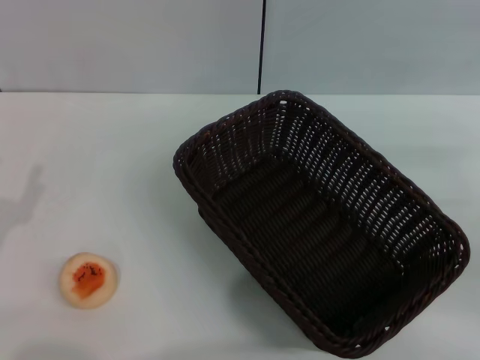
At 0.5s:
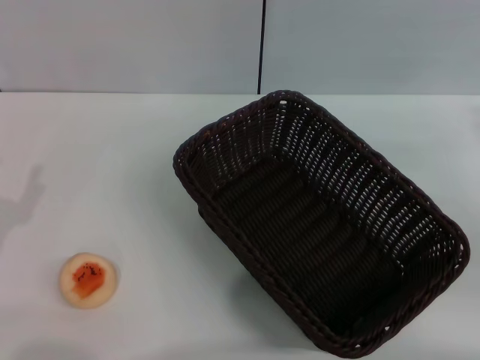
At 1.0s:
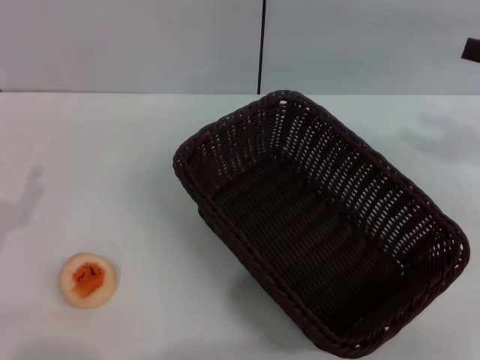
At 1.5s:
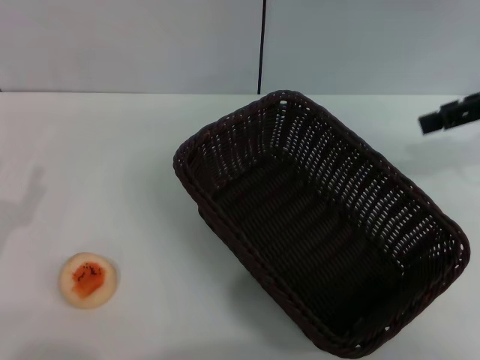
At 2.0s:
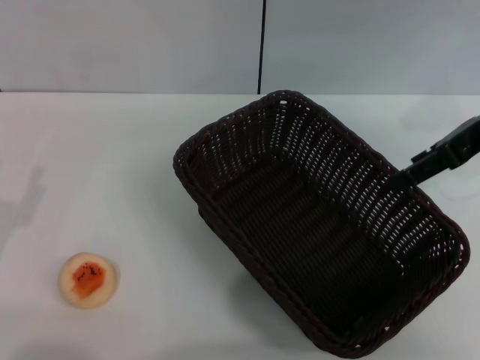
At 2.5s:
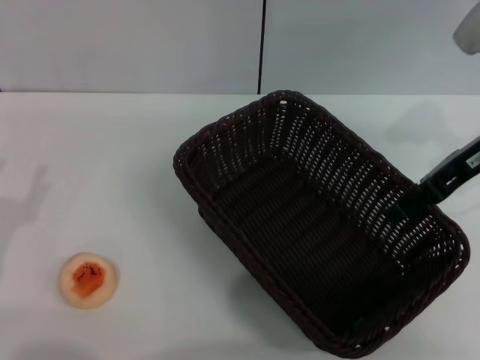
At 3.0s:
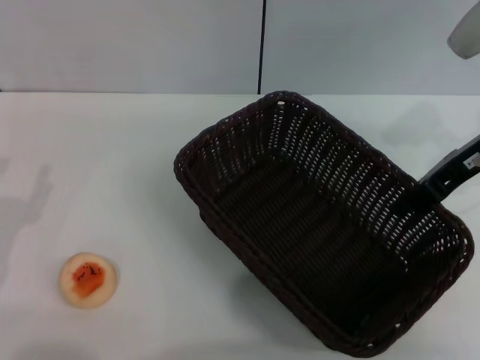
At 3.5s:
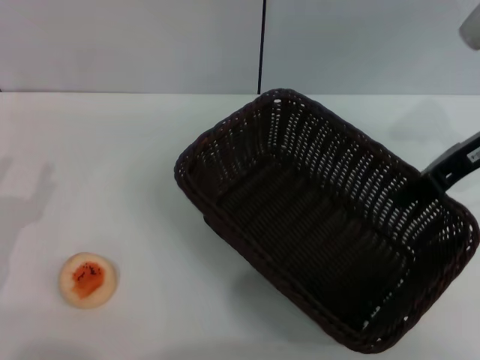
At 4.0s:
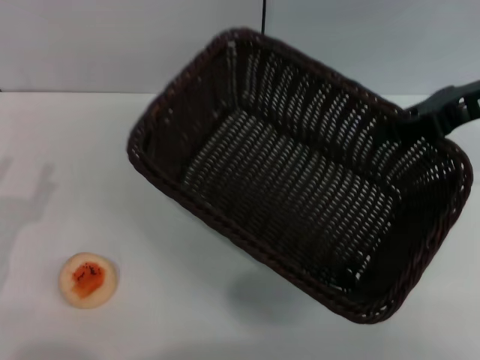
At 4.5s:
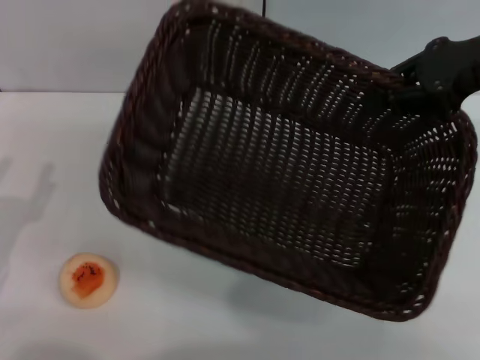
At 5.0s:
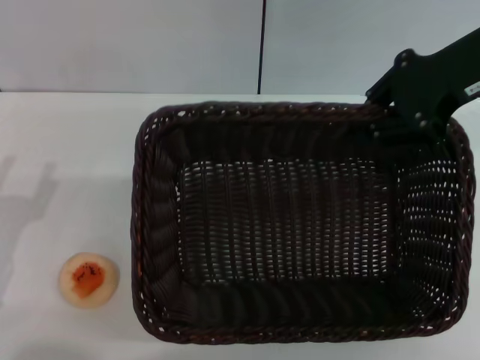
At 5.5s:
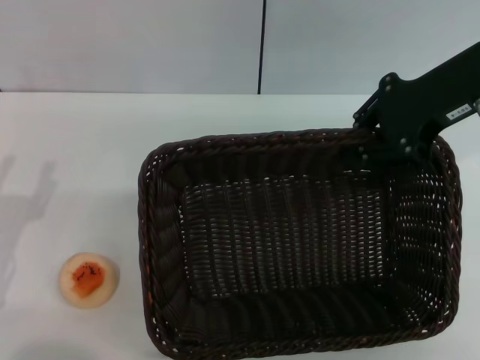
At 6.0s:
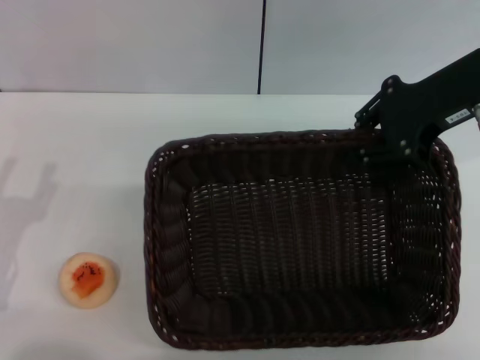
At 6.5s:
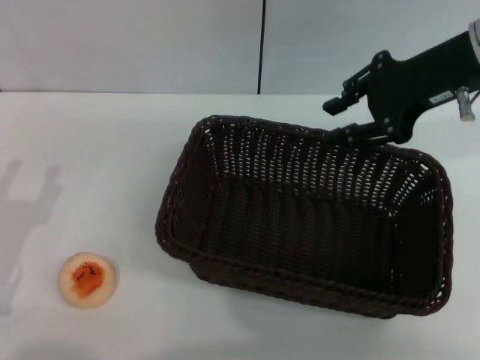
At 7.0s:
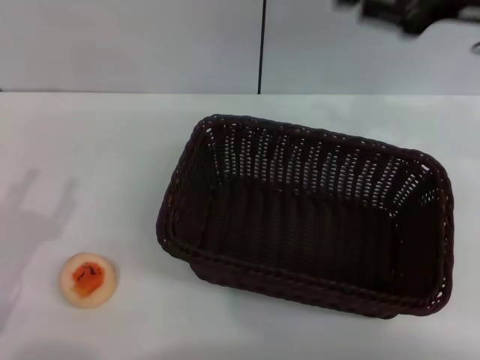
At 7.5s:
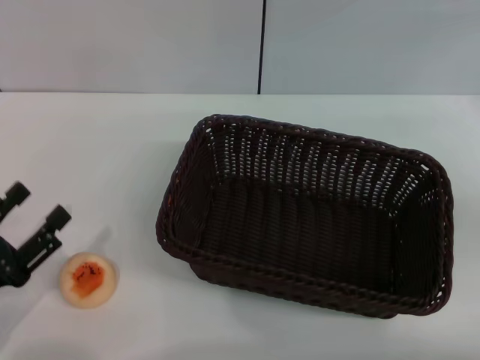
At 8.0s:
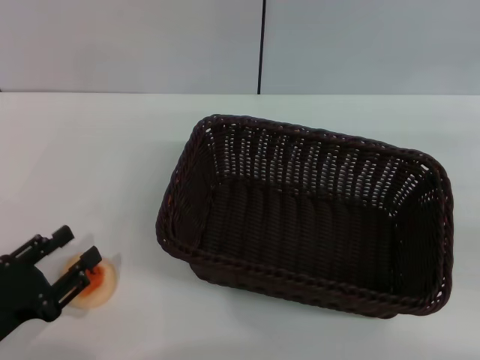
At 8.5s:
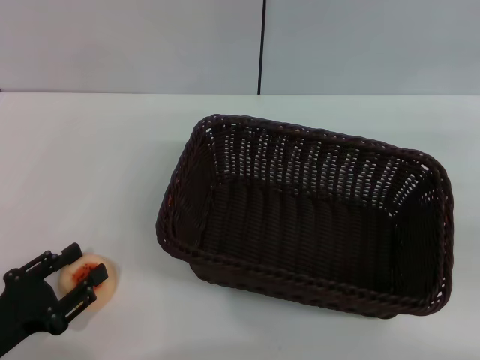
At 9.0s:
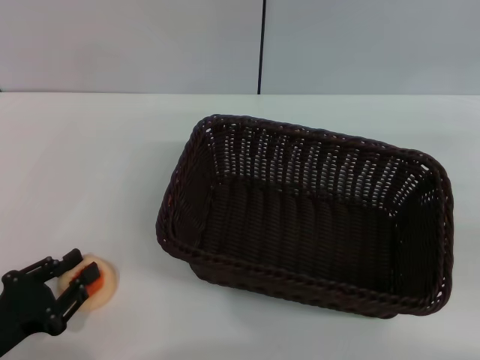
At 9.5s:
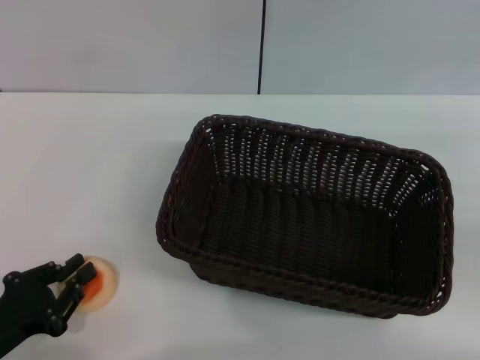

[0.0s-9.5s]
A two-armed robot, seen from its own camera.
Step, 0.0s to 6.0s: Move the basket to the center of view with the right gripper.
0.0s to 2.0s: The right gripper goes some 20 cm forward, upward and to the left, and opens up.
2.0s to 4.0s: The right gripper closes up.
4.0s to 5.5s: The right gripper travels to the left by some 5 cm.
5.5s to 7.5s: The right gripper moves to the right and downward, some 20 cm.
7.5s to 9.5s: The left gripper closes up.

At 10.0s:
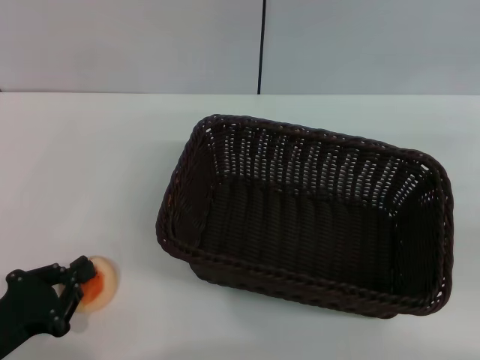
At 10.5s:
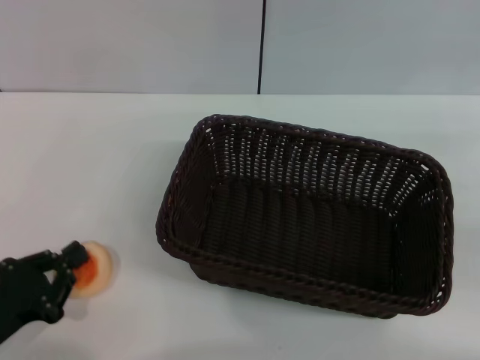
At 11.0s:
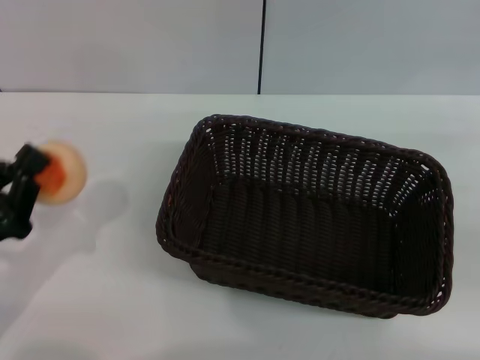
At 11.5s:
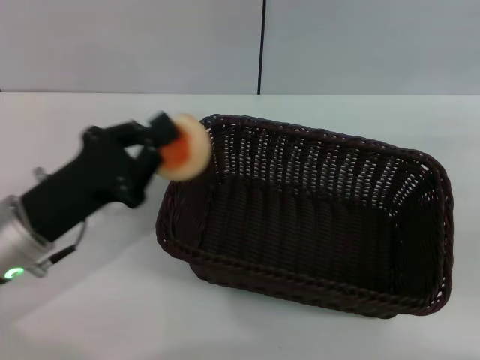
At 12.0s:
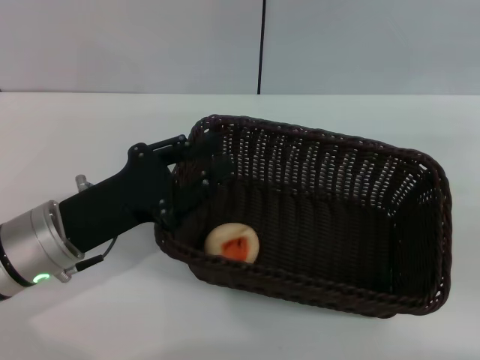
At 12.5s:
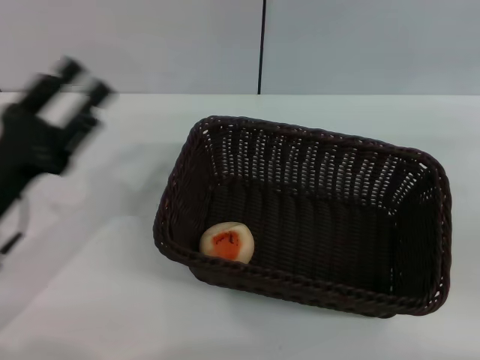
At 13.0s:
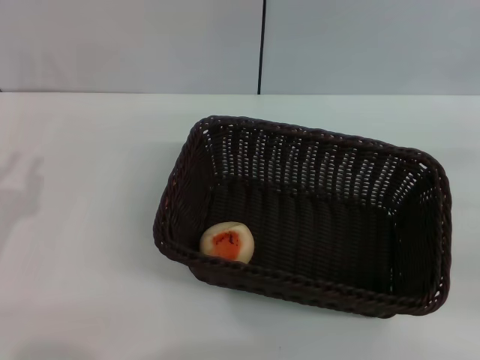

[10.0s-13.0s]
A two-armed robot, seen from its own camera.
Step, 11.0s to 12.0s: Place the egg yolk pastry into the basket with the left gripper.
10.0s to 11.5s: The left gripper shifts about 15 cm forward, to the right and upward.
11.5s to 13.0s: The left gripper moves to the left and backward, about 10 cm, and opens.

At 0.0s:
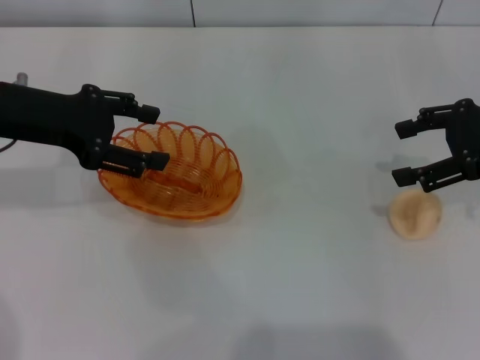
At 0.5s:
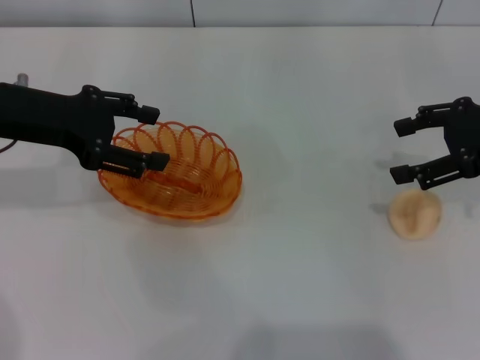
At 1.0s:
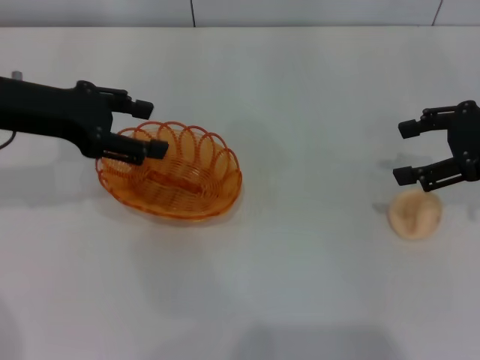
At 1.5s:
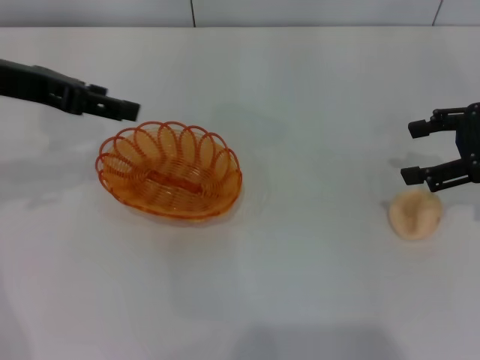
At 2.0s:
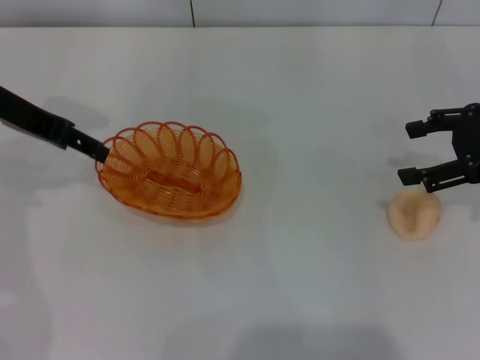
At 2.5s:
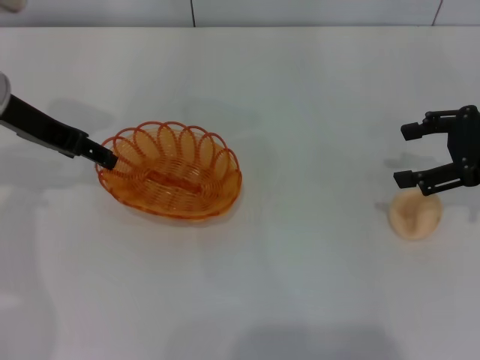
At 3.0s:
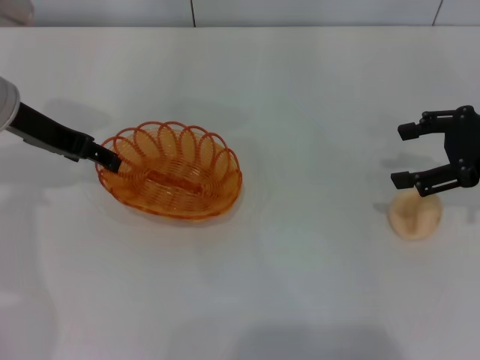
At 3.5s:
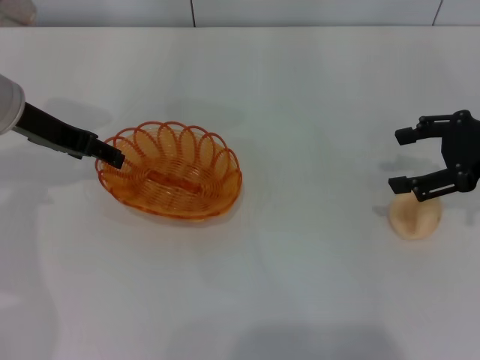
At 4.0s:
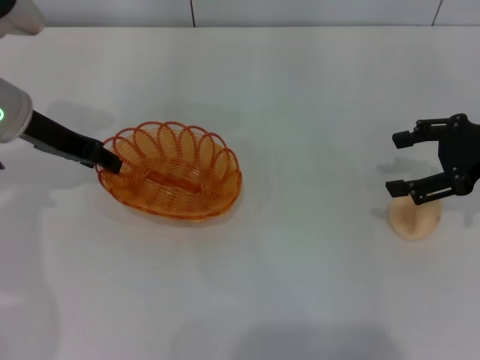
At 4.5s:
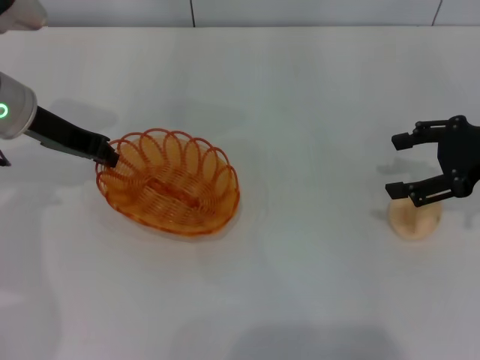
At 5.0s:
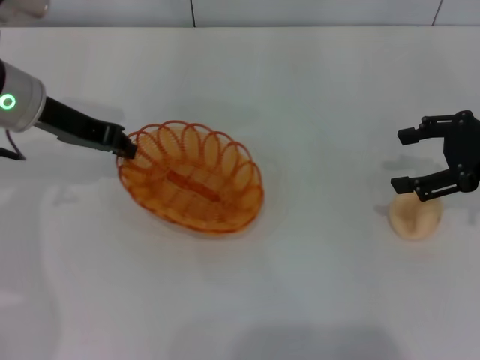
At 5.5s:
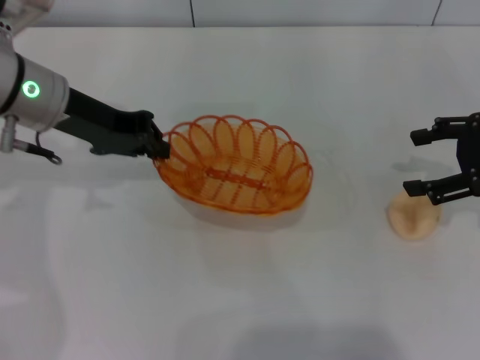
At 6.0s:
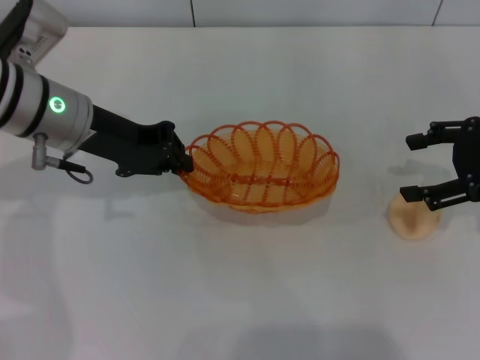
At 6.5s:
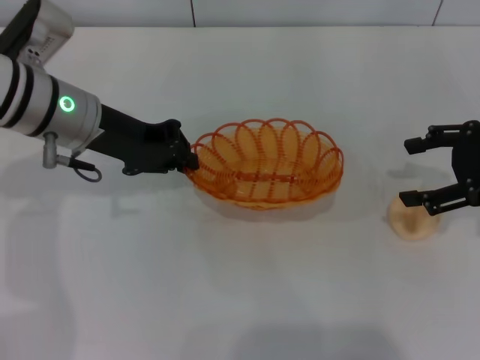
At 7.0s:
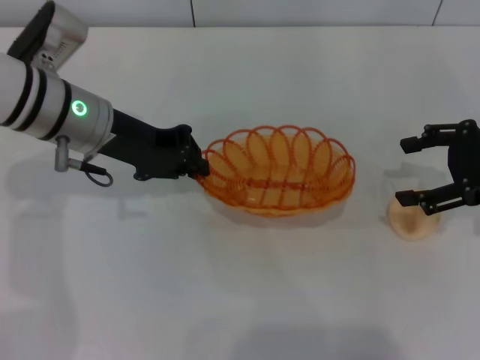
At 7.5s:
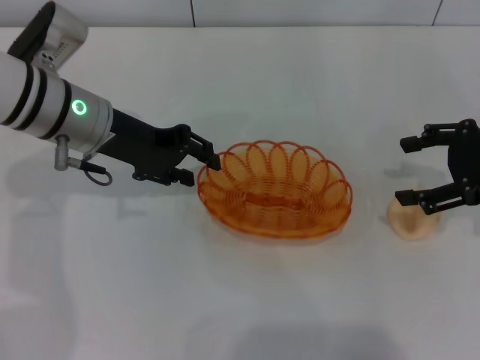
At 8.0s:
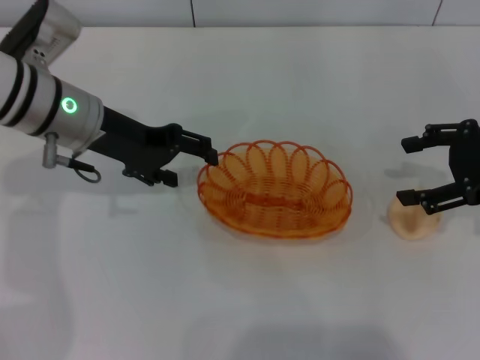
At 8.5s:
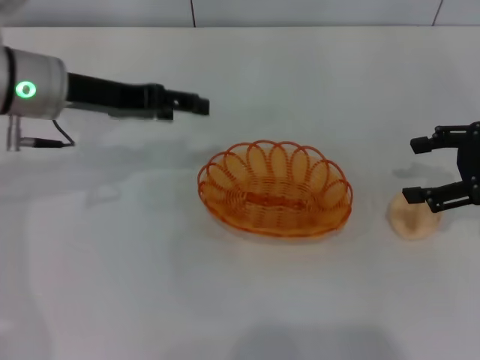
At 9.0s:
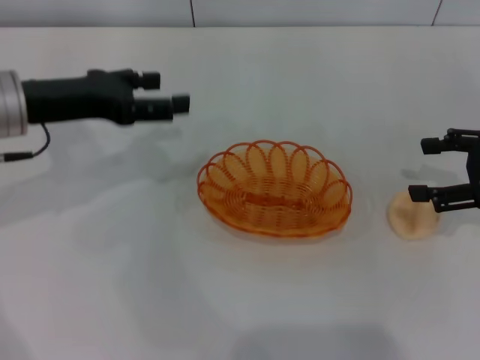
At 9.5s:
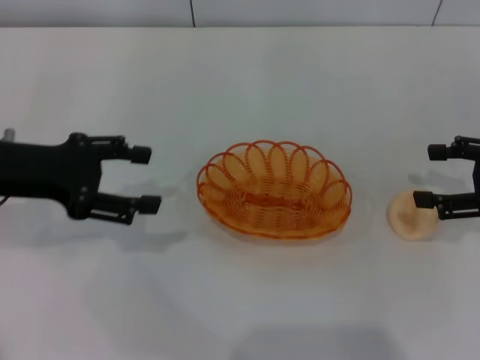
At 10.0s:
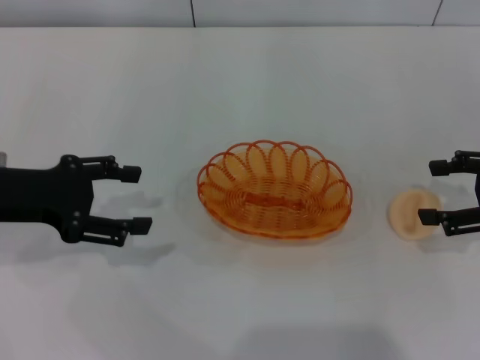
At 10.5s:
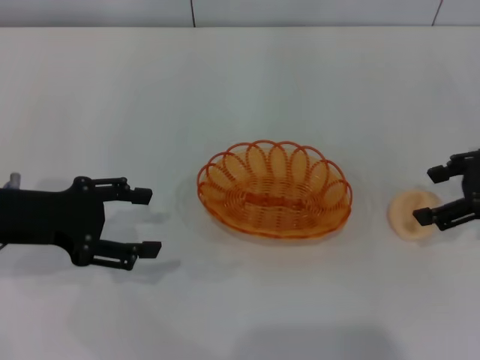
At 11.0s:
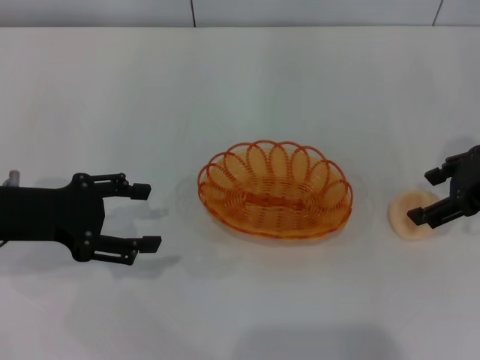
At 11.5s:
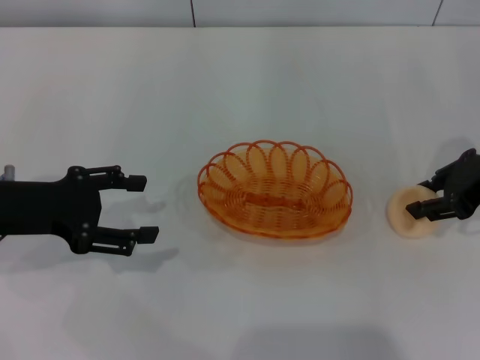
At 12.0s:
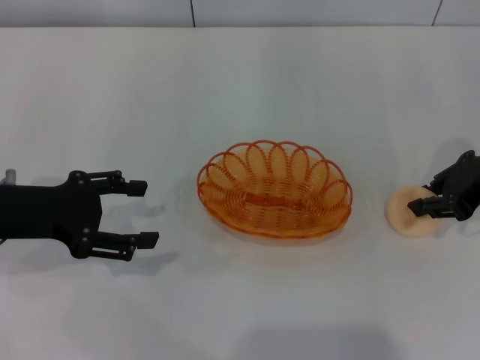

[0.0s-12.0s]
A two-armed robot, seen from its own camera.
Step, 0.0s to 6.0s: Pick up the basket with the left gripper.
Step, 6.5s to 9.0s: Place the basket in the center of view with the left gripper.
2.0s to 4.0s: The left gripper moves downward, about 5 cm.
4.0s to 6.0s: The left gripper shifts approximately 5 cm to the right, and closes up.
6.0s to 8.0s: The left gripper opens.
8.0s to 10.0s: The right gripper changes place by about 5 cm; the left gripper heads to the left and backward, covering approximately 15 cm.
10.0s to 12.0s: The right gripper heads to the left, covering roughly 5 cm, and closes.

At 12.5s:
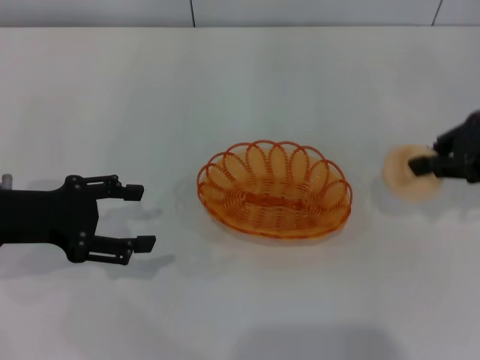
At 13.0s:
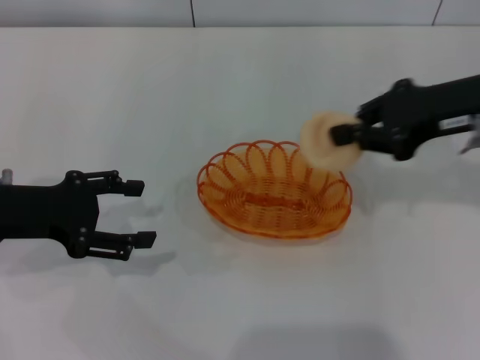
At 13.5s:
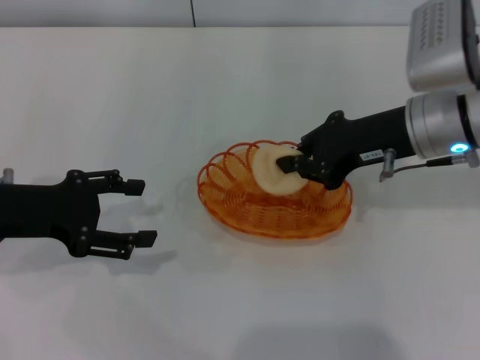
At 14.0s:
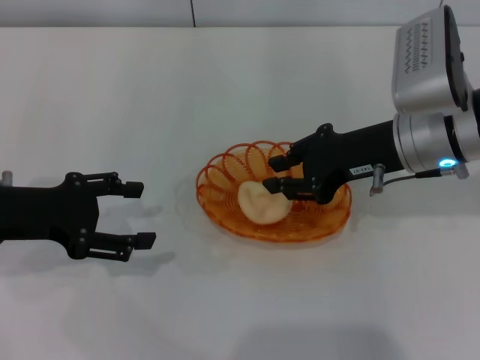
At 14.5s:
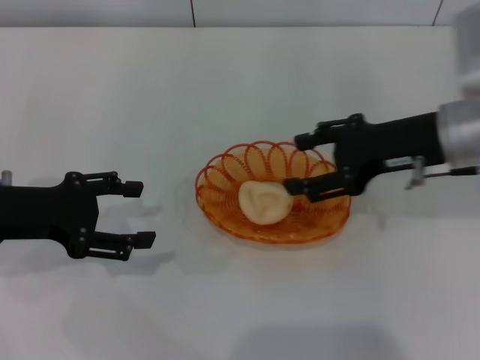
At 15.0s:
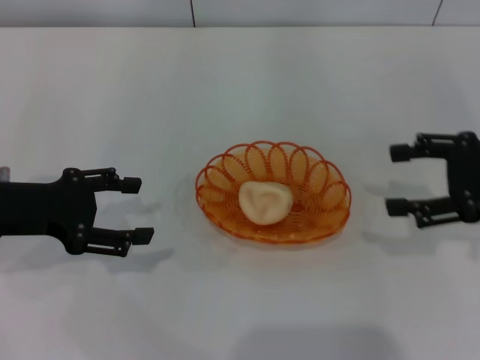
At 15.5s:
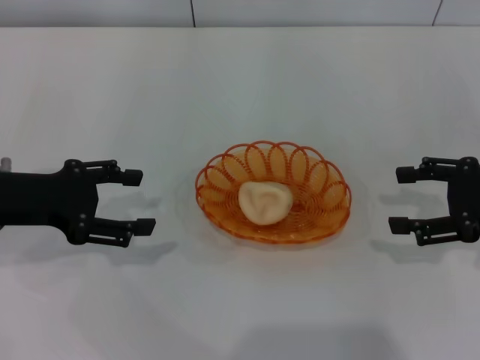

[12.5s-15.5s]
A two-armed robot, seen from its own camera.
Step, 12.5s to 14.5s: Place the egg yolk pastry into the basket with the right gripper.
12.5s to 14.0s: The right gripper heads to the left, covering roughly 10 cm.
14.0s to 15.5s: The right gripper is displaced to the right by approximately 15 cm, and opens.
